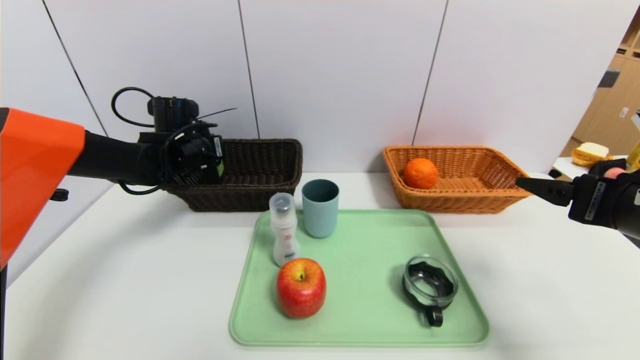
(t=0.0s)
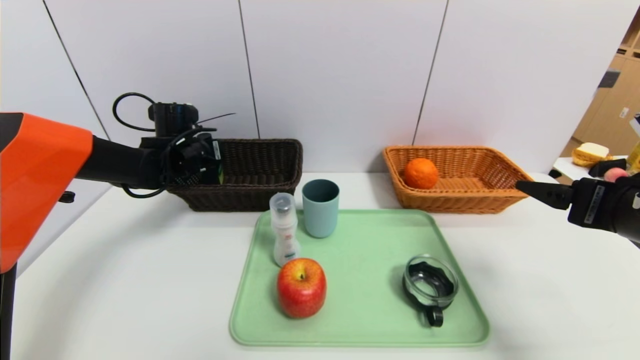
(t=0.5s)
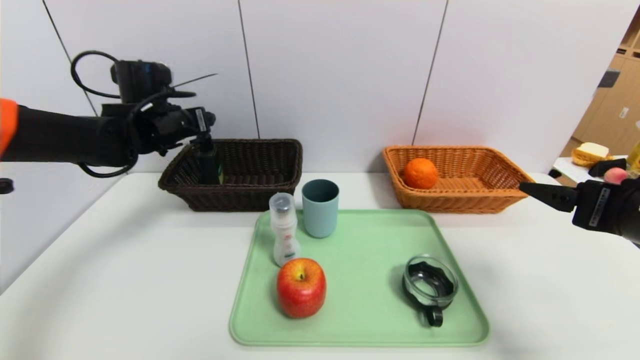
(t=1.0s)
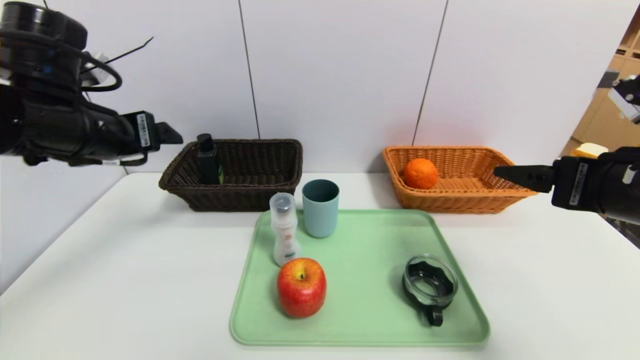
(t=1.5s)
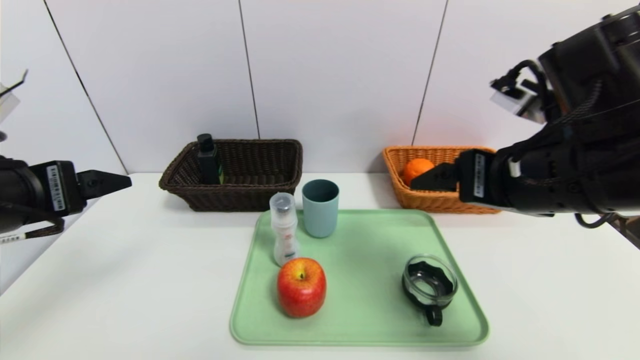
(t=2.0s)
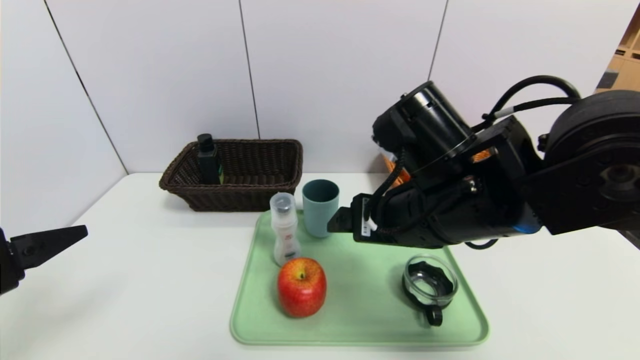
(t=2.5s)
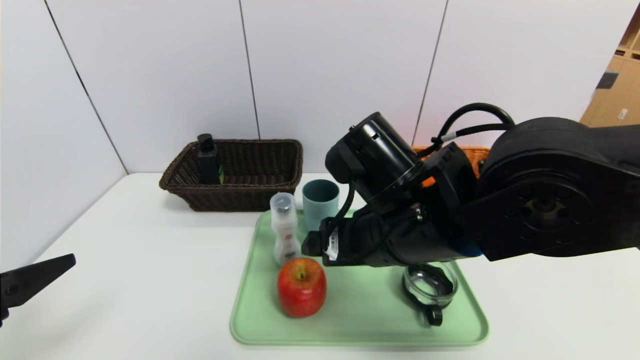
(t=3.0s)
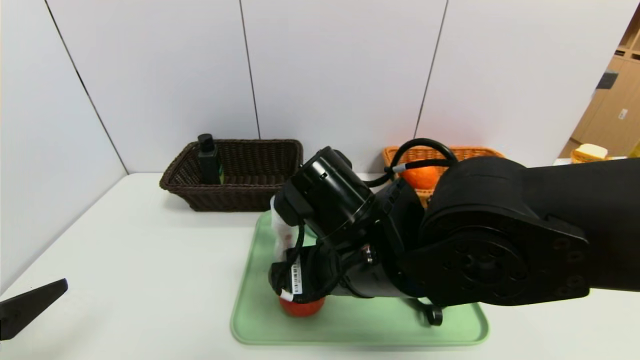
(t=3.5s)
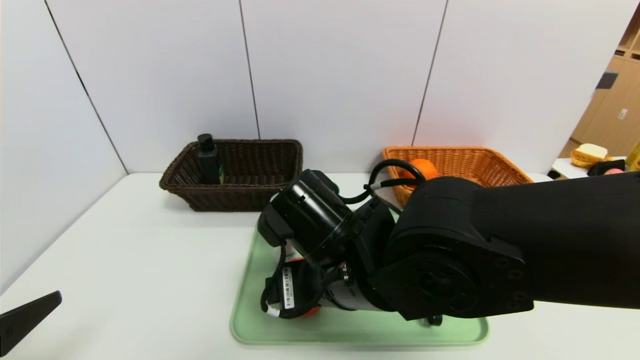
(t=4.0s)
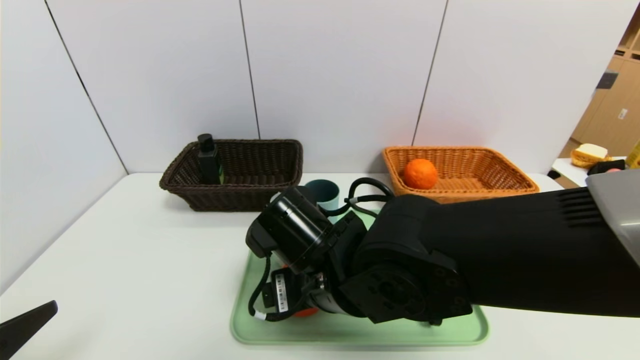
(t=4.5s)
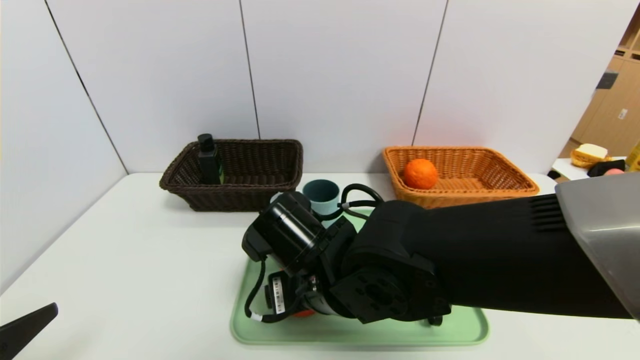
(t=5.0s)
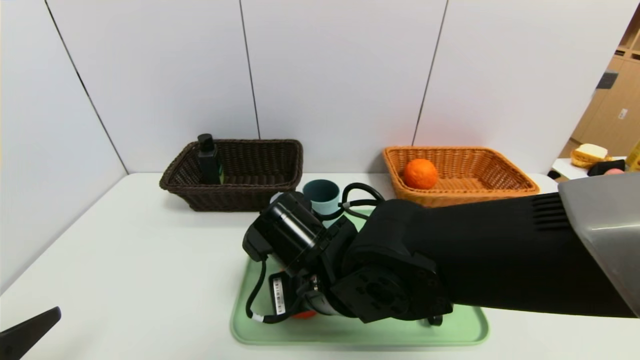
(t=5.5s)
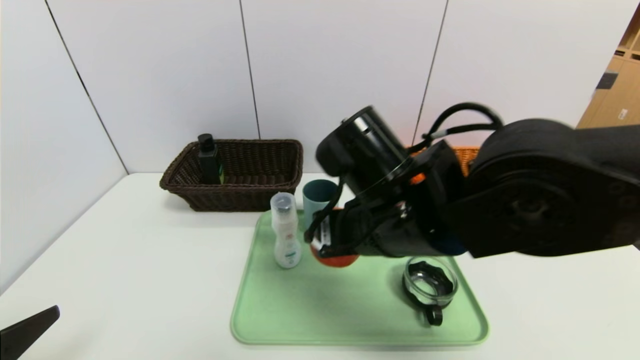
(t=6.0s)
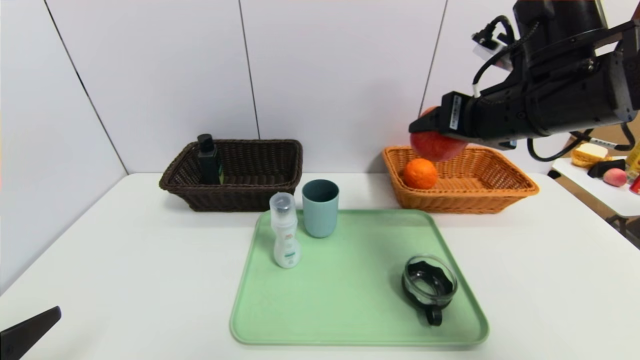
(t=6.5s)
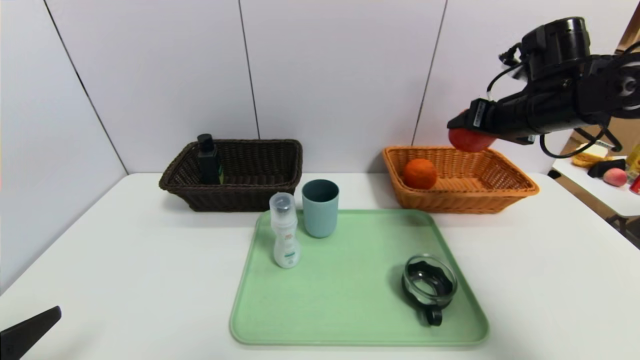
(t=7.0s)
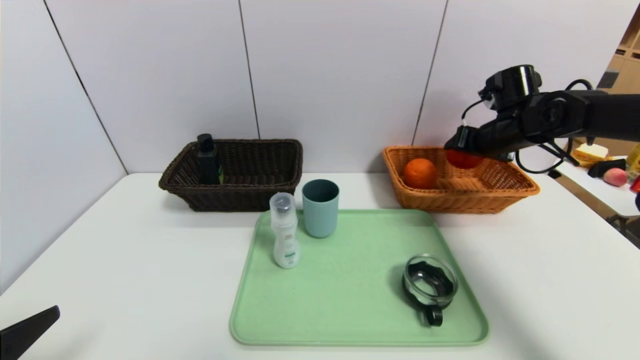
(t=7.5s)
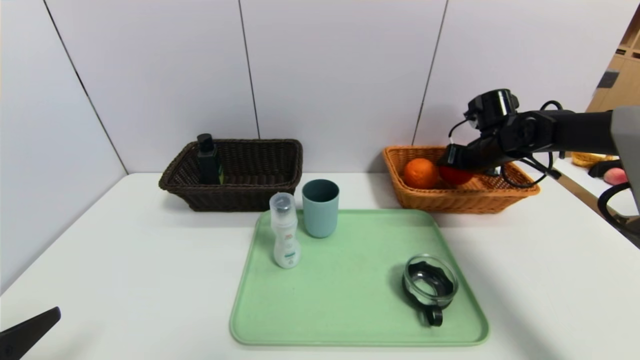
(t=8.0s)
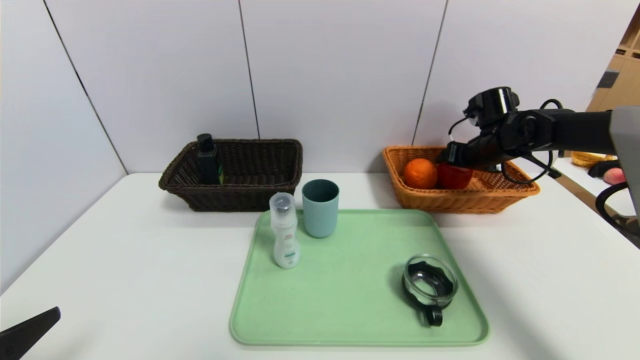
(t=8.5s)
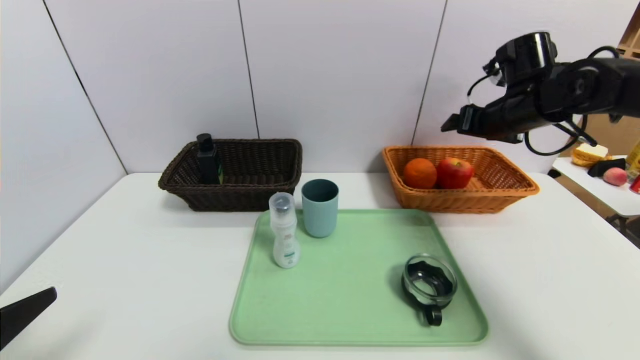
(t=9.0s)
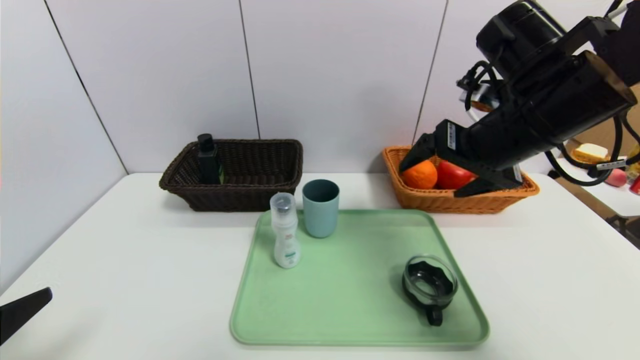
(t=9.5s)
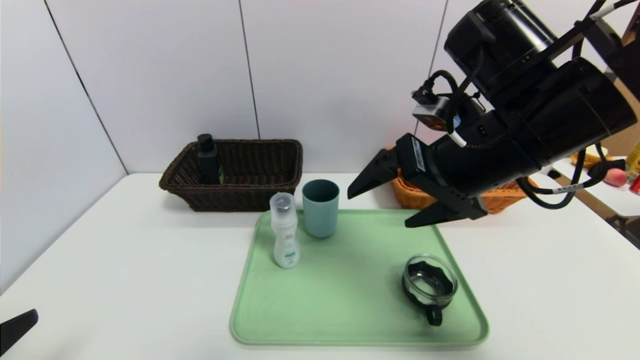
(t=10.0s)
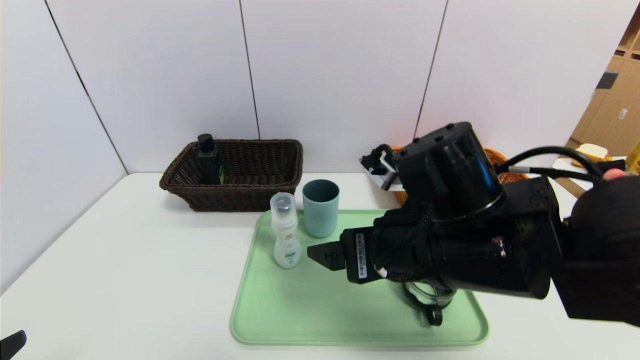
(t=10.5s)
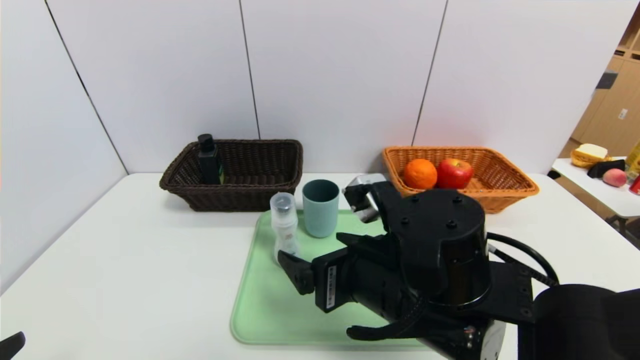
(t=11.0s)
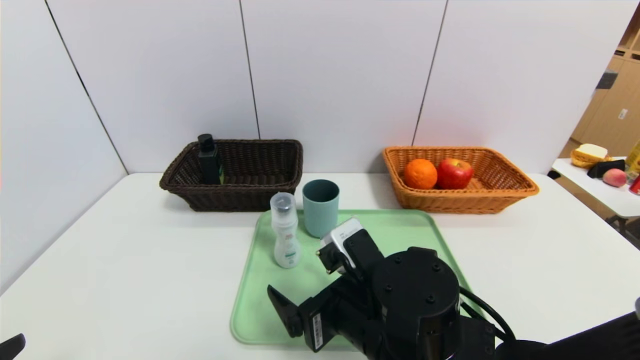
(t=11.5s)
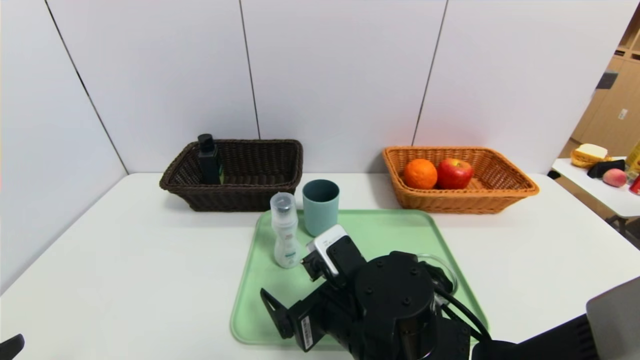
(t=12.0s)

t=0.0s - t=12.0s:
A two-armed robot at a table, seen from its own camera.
Task of the whole recording: place the food in the right basket with the right gripper, and place the non food items in the left basket with the left gripper.
Step, t=1.5s - t=9.0s: Grasp the apple and put it in the right basket.
t=0.0s - t=2.0s: The right gripper shifts approximately 10 cm to the left; the left gripper travels backward by roughly 30 cm, and opens up.
t=2.0s - t=4.0s: The left gripper heads backward and downward, covering approximately 15 cm; the right gripper travels to the left and downward by about 20 cm.
t=4.0s - t=6.0s: The right gripper goes some 5 cm to the right, and closes.
t=6.0s - t=8.0s: The right gripper travels to the right and forward by approximately 35 cm.
t=8.0s - t=10.0s: The right gripper heads backward, to the left and upward, covering about 30 cm, and opens.
t=10.0s - t=12.0s: The right gripper heads downward and to the left, covering about 20 cm.

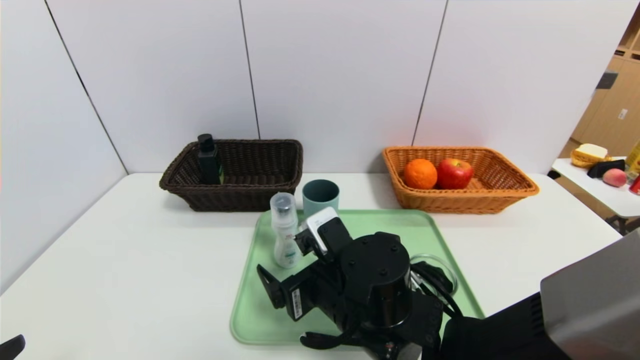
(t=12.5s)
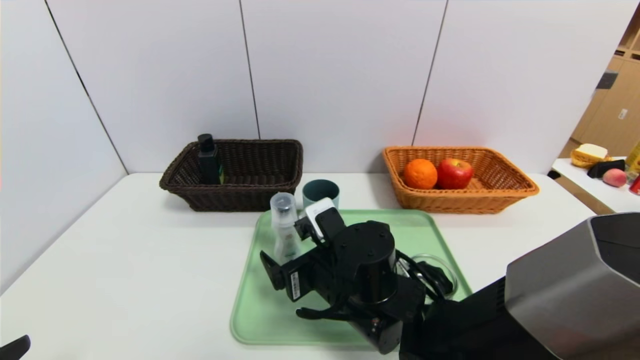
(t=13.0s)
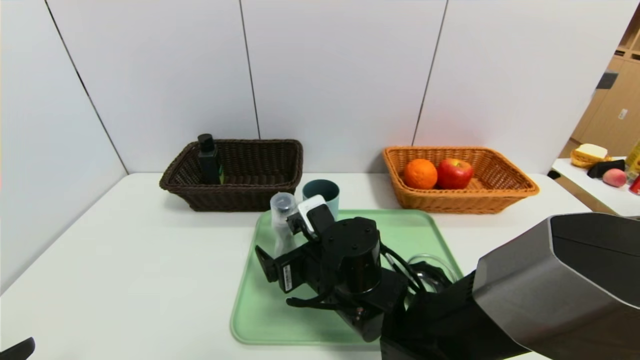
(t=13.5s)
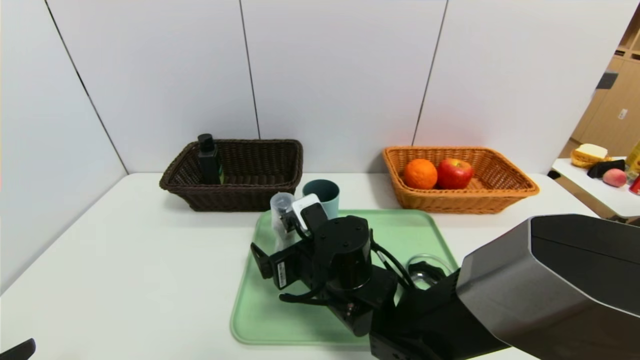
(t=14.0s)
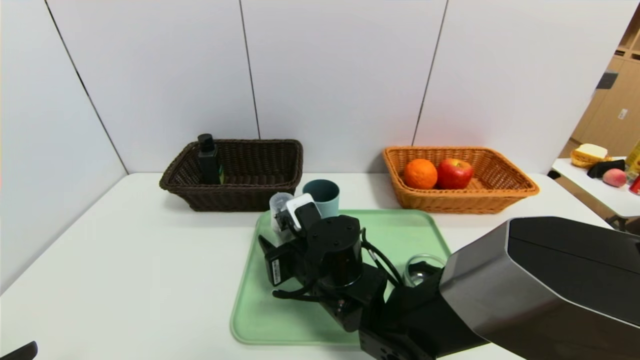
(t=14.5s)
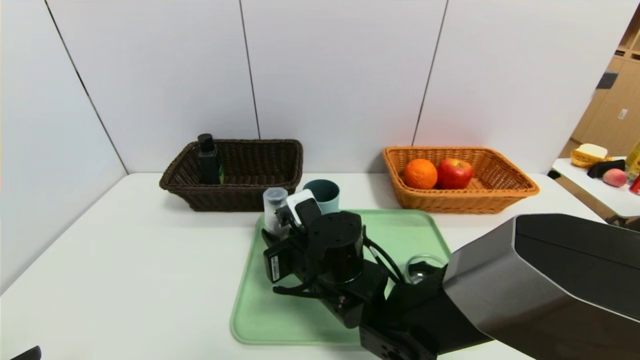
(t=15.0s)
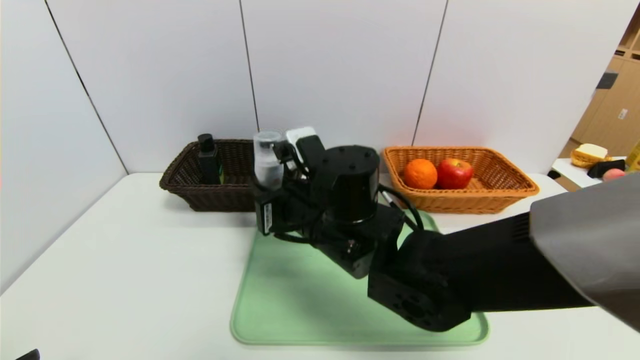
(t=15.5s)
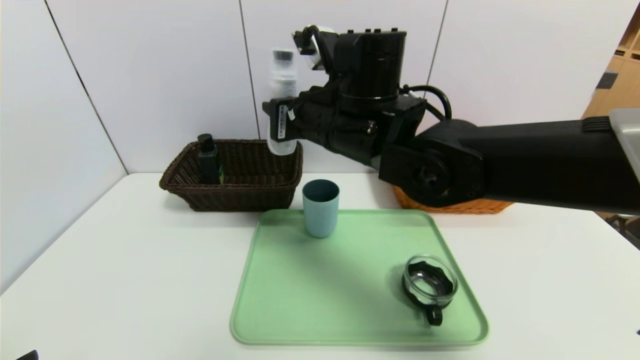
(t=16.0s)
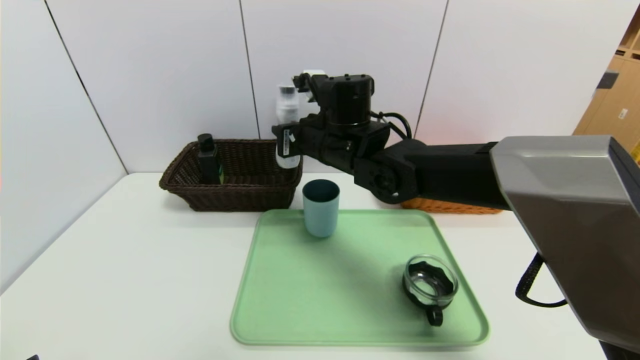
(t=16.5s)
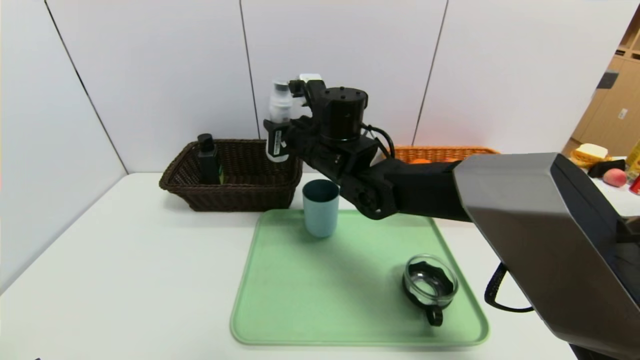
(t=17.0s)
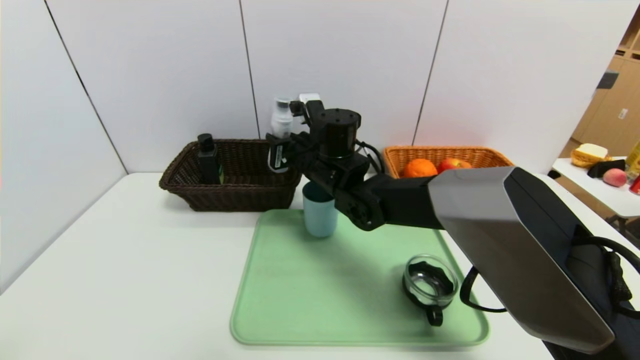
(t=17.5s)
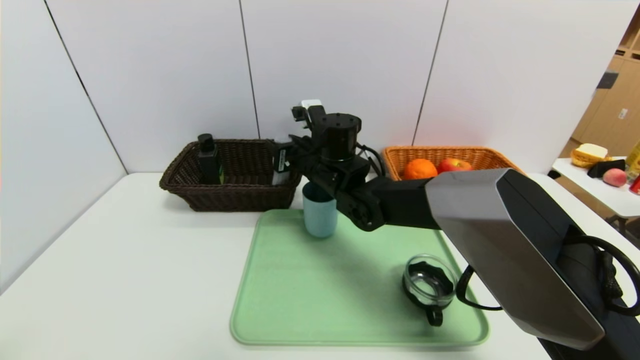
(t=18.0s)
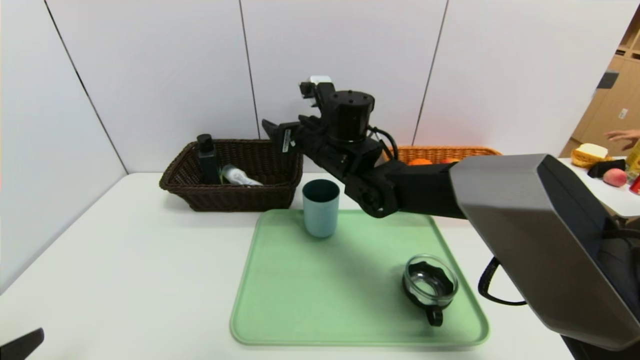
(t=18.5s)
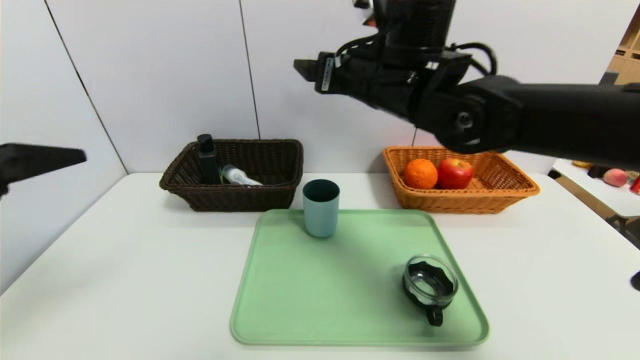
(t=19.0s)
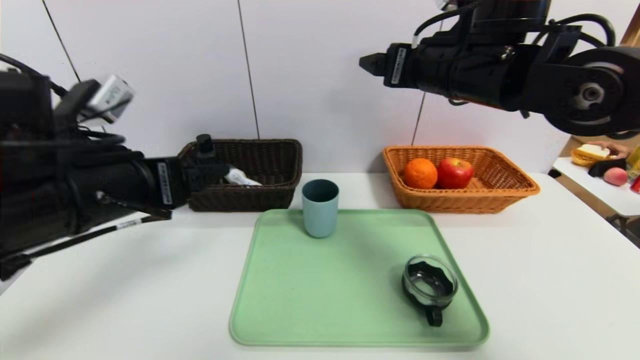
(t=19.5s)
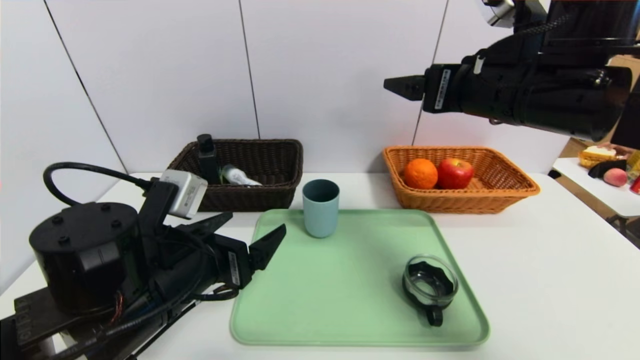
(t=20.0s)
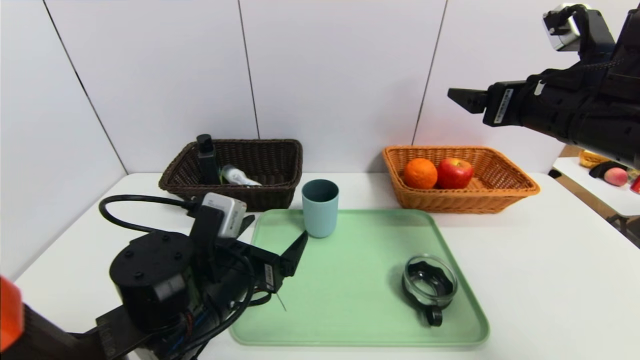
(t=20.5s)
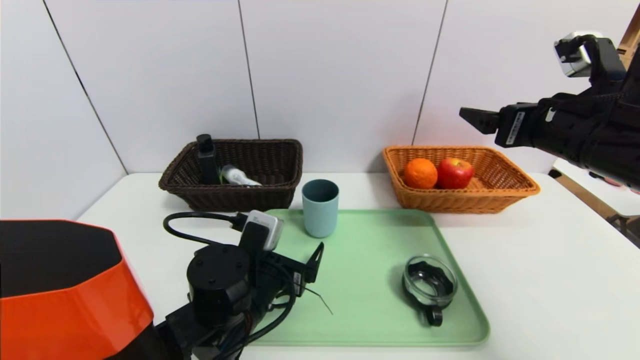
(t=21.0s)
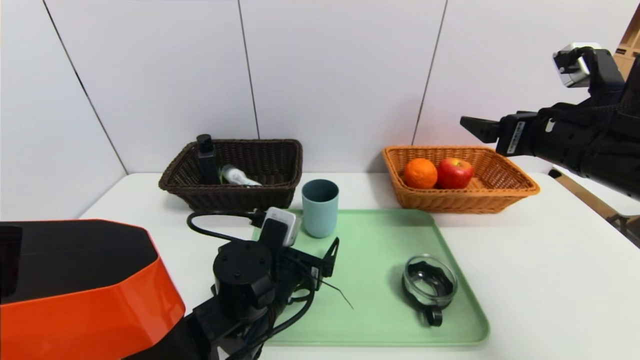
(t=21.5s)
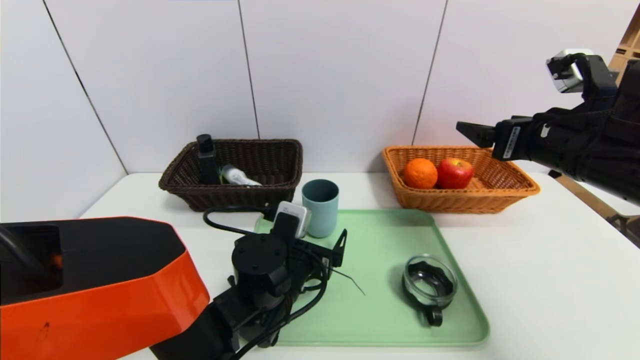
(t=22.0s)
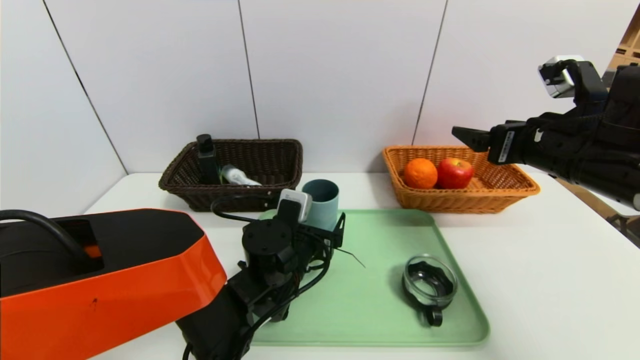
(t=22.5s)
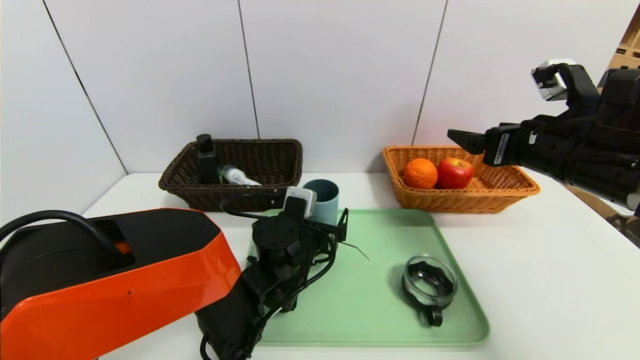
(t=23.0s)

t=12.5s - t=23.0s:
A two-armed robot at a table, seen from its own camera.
Task of the whole recording: place the food in the right basket with the right gripper, and place the non food items in the left basket with the left gripper.
t=12.5s - t=14.5s: The right gripper is displaced forward by some 5 cm, and closes its fingers.
t=14.5s - t=16.5s: The right gripper shifts about 20 cm upward and forward.
t=16.5s - t=19.0s: The right gripper is displaced upward and to the right by roughly 10 cm, and opens, while the left gripper moves upward and forward, approximately 15 cm.
t=19.0s - t=21.0s: The left gripper moves downward, to the right and forward, approximately 30 cm, while the right gripper is displaced to the right and backward by roughly 20 cm.
t=21.0s - t=23.0s: The left gripper travels forward and to the right by about 10 cm.
